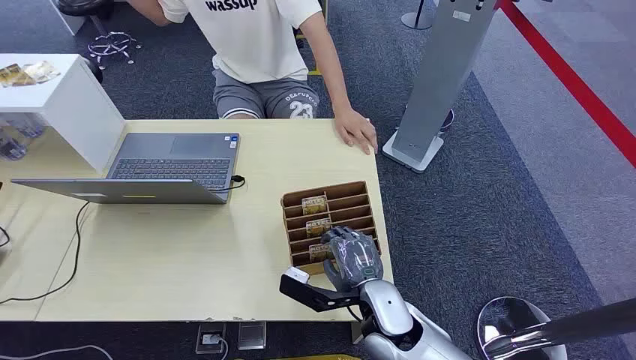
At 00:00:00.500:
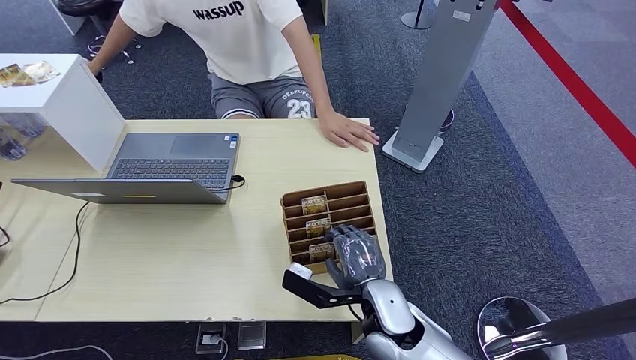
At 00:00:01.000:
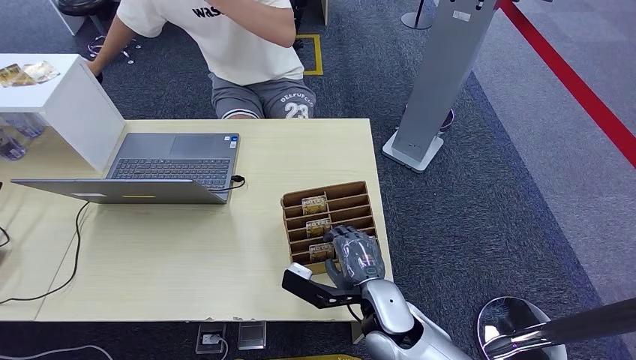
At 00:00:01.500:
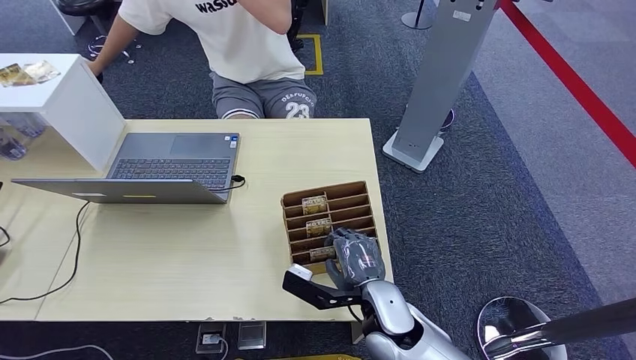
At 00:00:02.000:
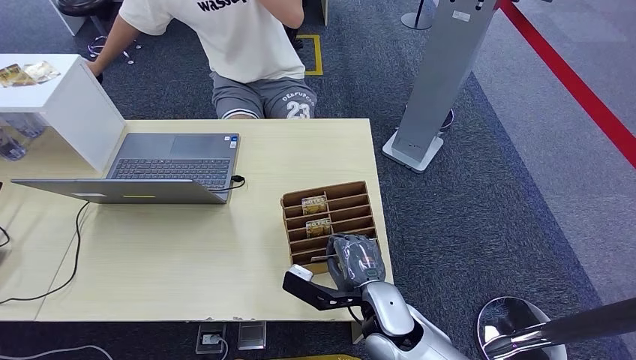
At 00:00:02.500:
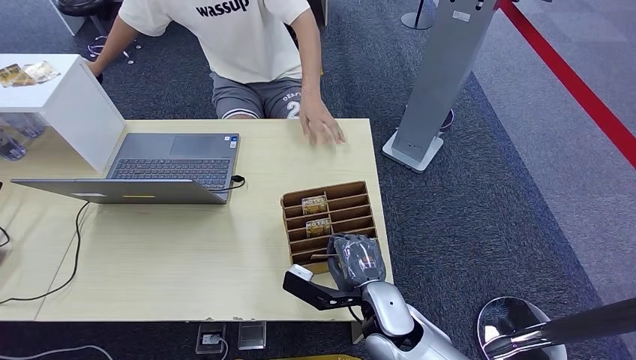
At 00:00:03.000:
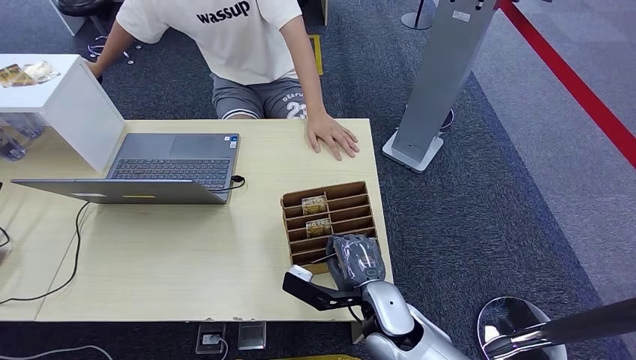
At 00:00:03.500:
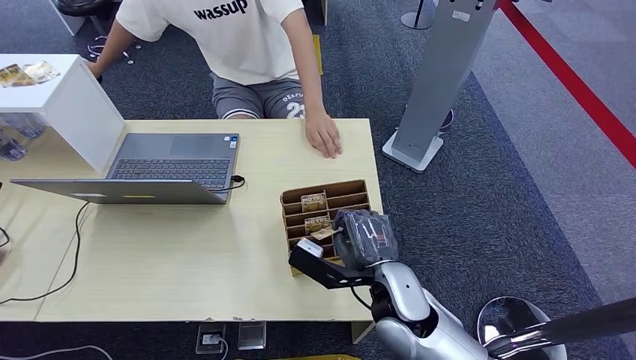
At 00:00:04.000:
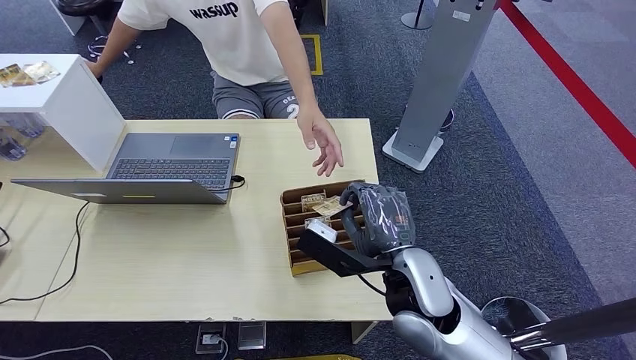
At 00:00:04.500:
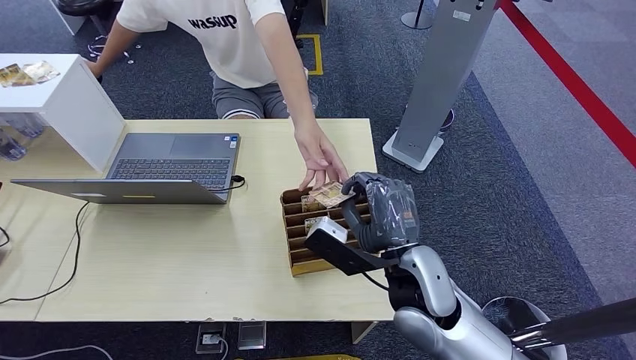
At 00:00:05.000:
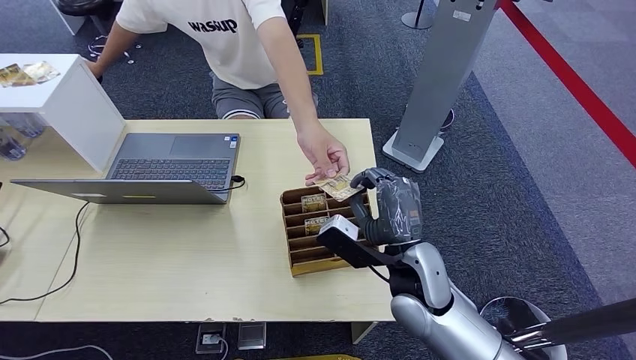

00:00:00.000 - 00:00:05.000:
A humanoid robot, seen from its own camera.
Step, 00:00:00.000 - 00:00:03.000: Pick up the room card from the card holder.
Step, 00:00:03.500 - 00:00:05.000: Hand the room card to the target.
00:00:02.500 - 00:00:05.000: The right hand travels upward by approximately 10 cm.
